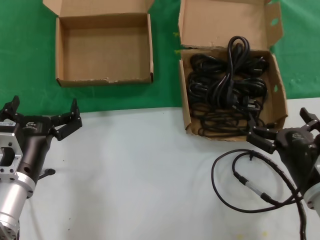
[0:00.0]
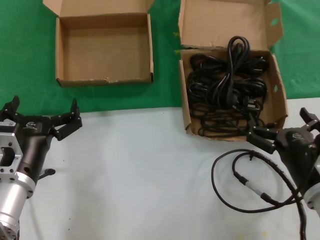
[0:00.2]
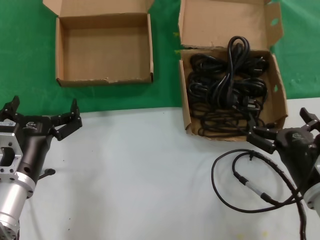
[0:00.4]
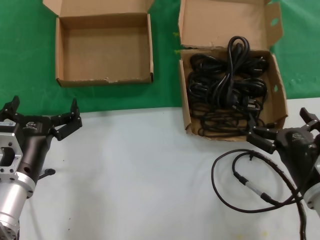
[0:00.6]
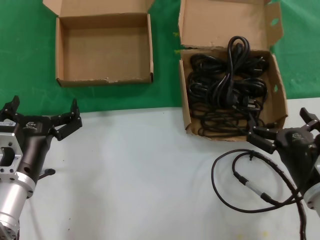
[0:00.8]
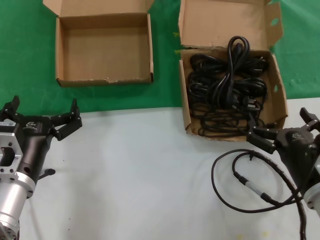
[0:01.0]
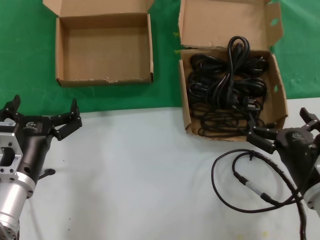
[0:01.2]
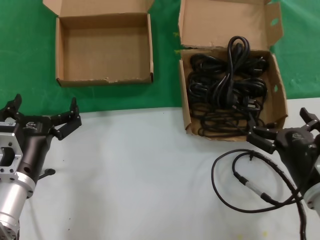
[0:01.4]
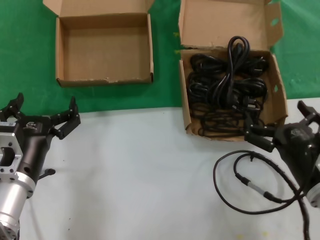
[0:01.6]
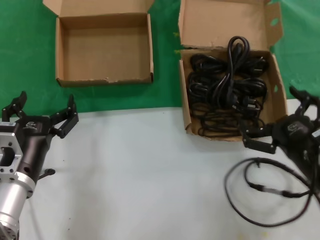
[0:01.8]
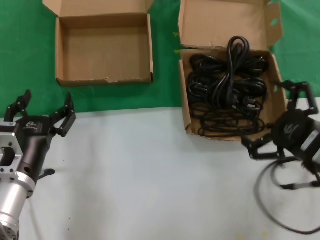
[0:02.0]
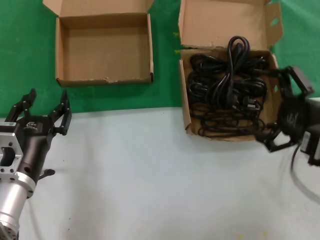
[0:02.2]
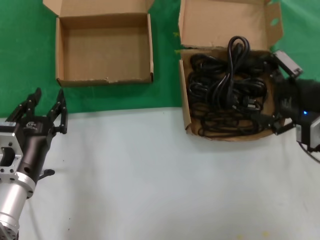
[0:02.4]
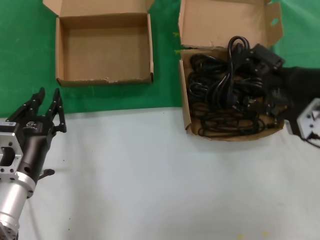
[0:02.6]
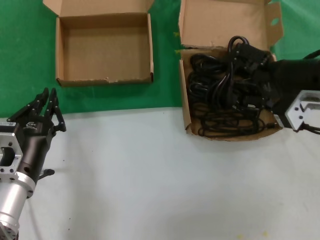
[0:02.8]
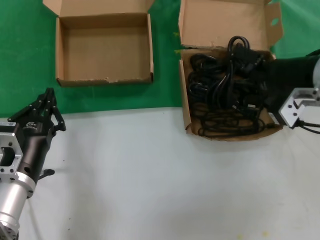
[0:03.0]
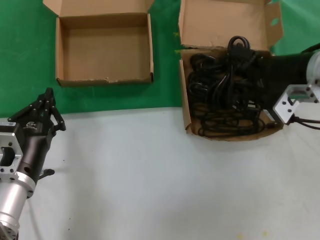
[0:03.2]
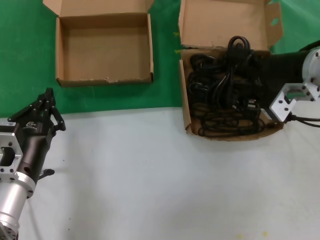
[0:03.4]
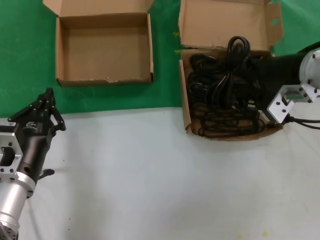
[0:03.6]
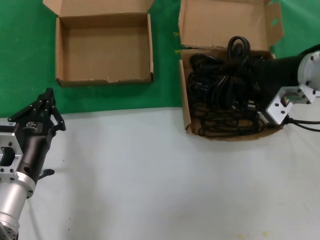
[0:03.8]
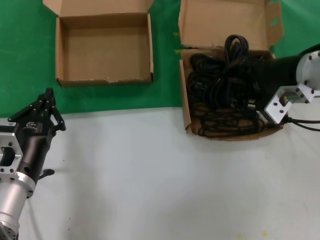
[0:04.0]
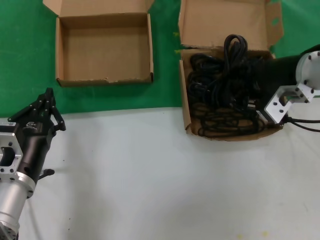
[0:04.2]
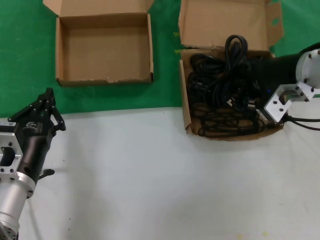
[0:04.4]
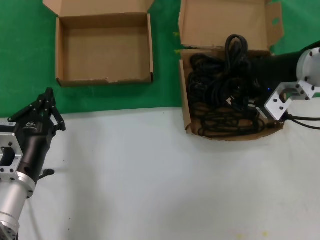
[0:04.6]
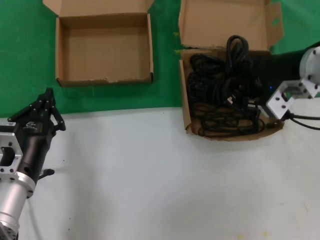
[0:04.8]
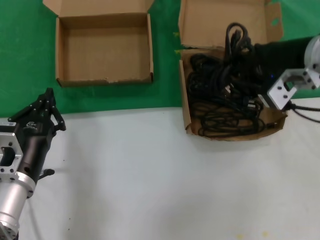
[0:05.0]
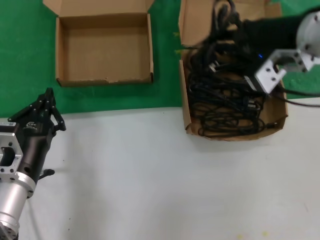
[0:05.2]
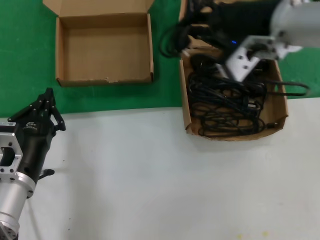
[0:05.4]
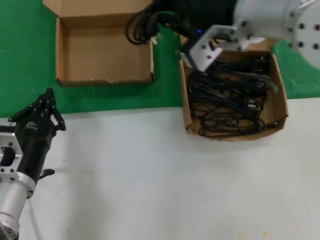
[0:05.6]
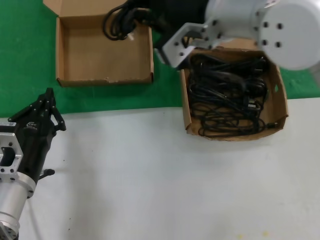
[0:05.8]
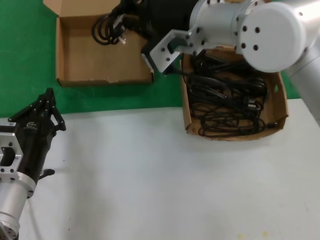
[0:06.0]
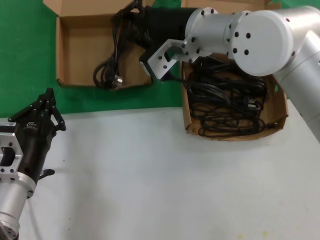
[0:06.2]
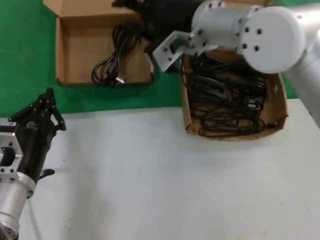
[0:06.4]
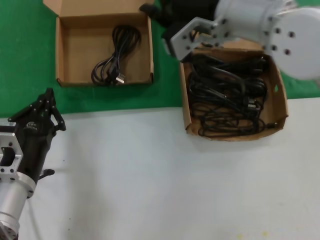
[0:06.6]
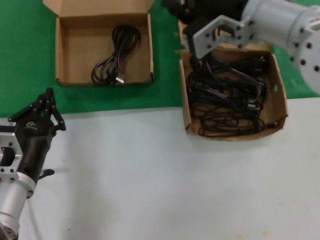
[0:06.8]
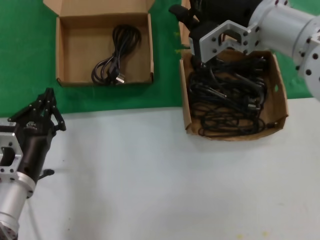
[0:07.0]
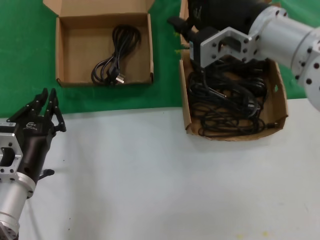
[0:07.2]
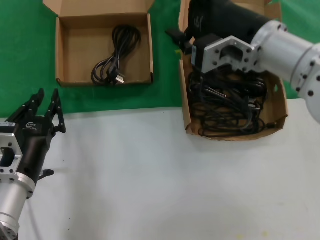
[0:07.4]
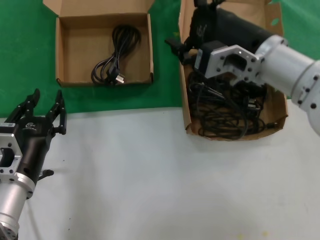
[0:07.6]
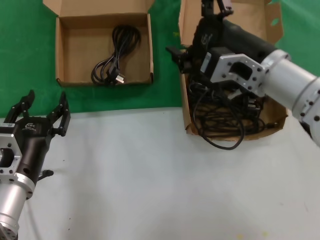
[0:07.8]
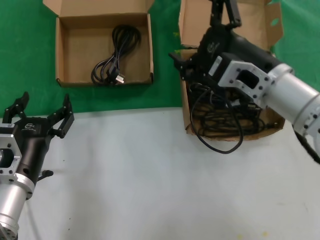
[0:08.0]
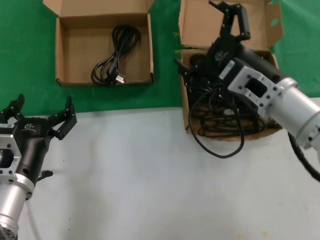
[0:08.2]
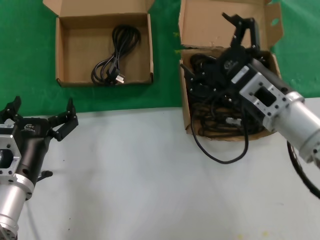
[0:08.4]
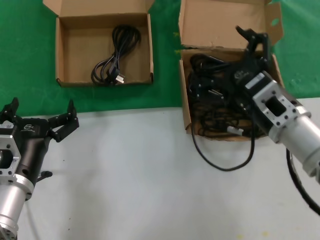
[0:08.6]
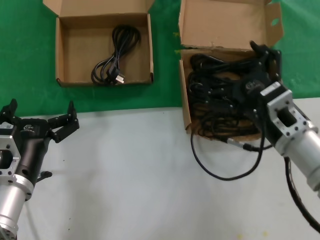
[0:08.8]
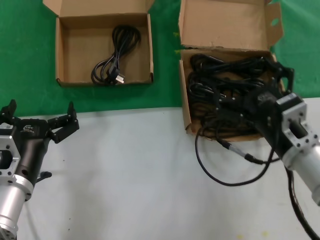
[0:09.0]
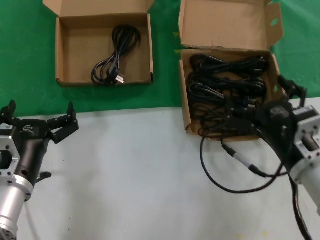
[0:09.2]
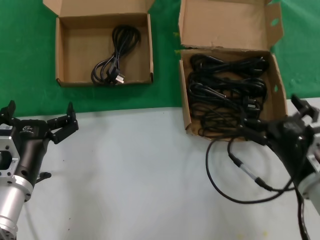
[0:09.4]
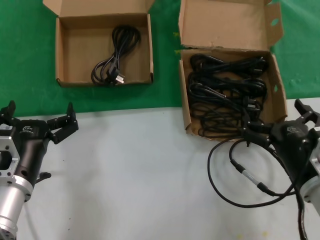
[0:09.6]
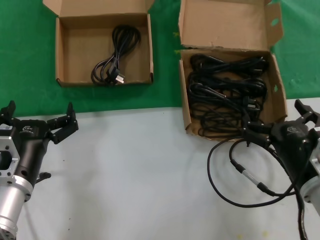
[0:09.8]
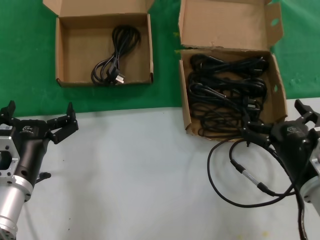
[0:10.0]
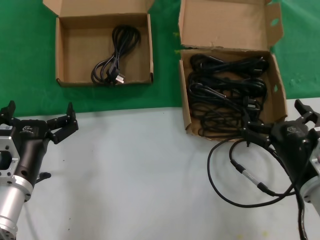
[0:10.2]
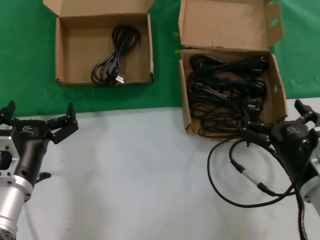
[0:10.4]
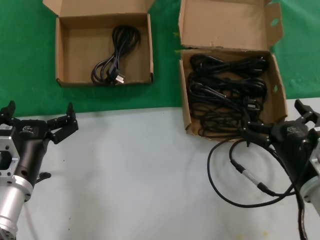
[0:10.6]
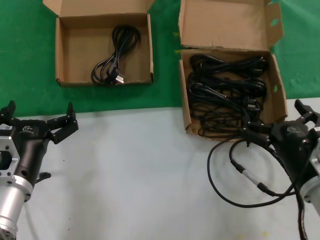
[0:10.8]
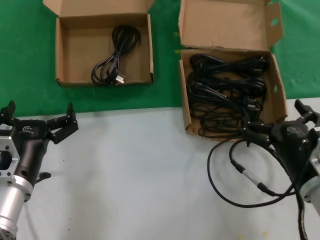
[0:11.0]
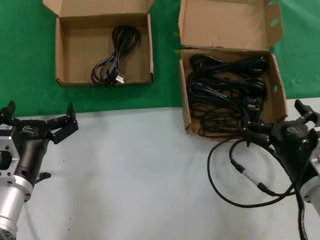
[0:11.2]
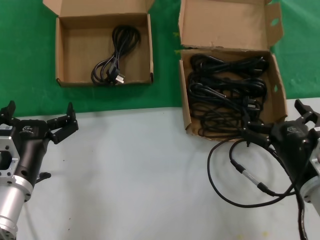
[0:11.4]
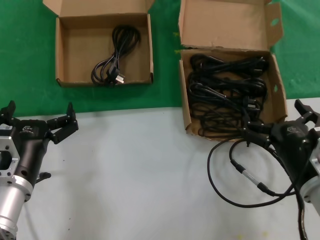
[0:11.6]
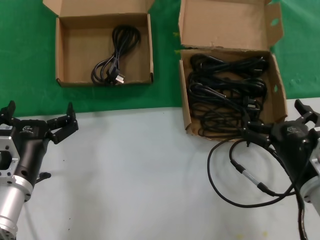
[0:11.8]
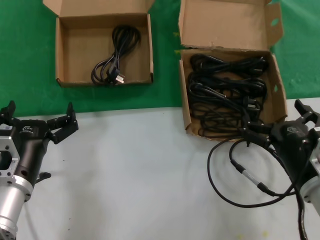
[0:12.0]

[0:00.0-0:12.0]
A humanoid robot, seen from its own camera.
Task of the whole recording: take the parts from the box containing them and put them into an empty box.
Step, 0.0 to 4.0 s: Grasp the data cable.
Step, 4.4 to 6.2 s: Place the data cable in the another box.
0.0 to 1.6 s: Both hands stay put.
1.6 to 3.0 s: The right hand shifts about 25 cm upward and forward.
3.0 to 4.4 s: The hands move only a little.
4.4 to 6.0 s: The right hand travels to the left by approximately 15 cm.
6.0 to 7.6 s: The right hand moves to the right, downward and backward, approximately 10 cm.
7.6 to 9.0 s: The right hand is displaced downward and backward by some 15 cm.
9.0 to 10.4 s: The right hand travels downward by approximately 5 cm.
10.4 to 12.0 s: The two hands keep their place.

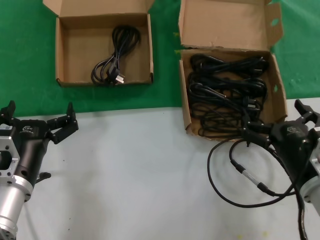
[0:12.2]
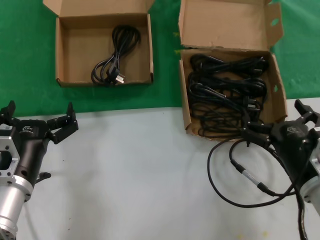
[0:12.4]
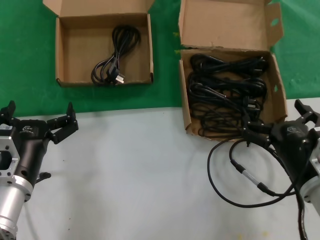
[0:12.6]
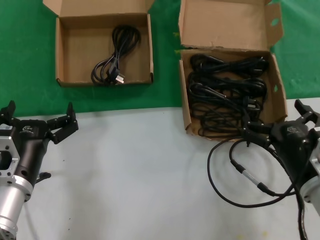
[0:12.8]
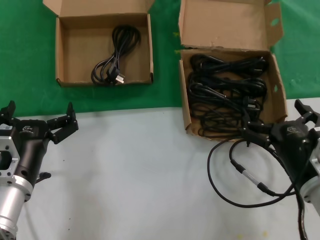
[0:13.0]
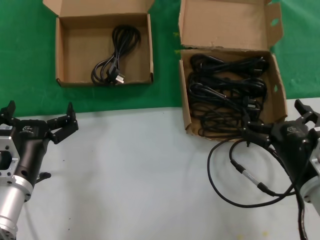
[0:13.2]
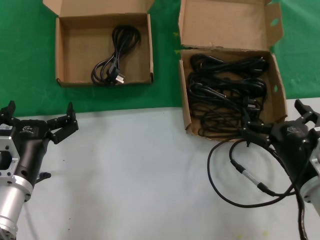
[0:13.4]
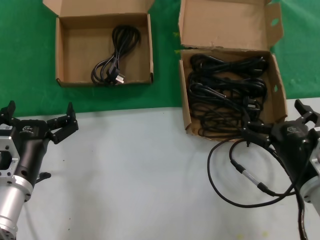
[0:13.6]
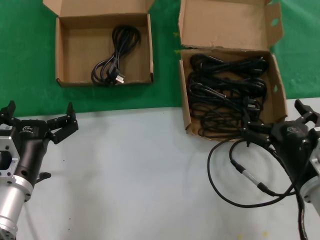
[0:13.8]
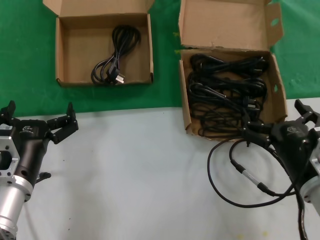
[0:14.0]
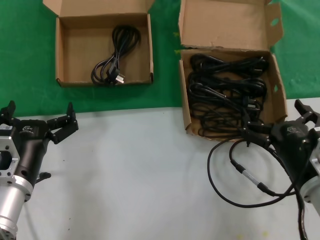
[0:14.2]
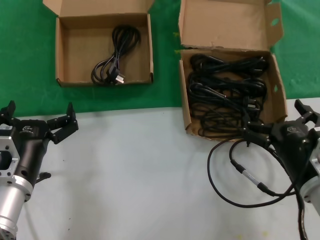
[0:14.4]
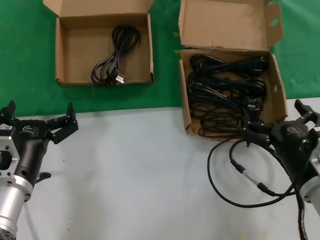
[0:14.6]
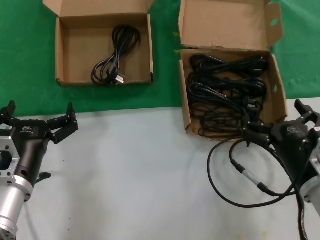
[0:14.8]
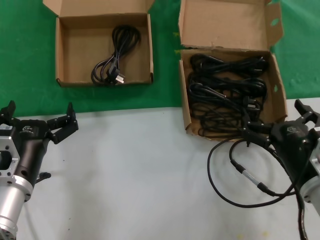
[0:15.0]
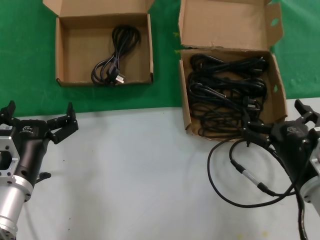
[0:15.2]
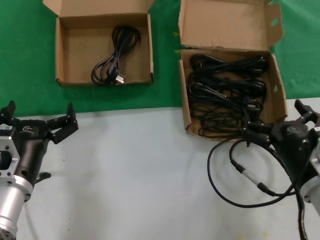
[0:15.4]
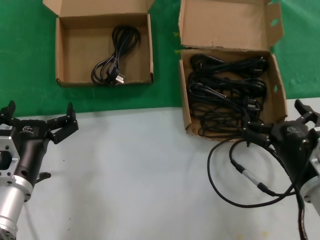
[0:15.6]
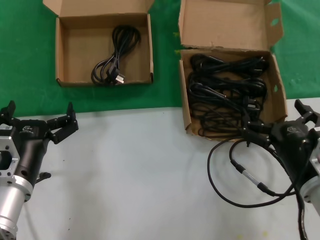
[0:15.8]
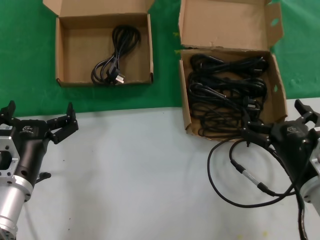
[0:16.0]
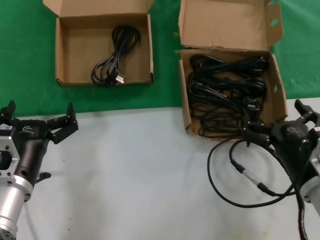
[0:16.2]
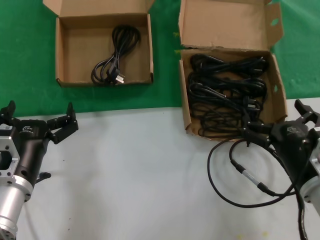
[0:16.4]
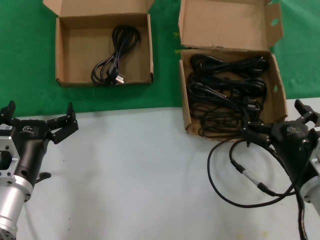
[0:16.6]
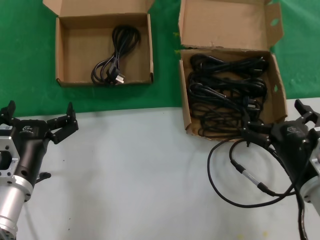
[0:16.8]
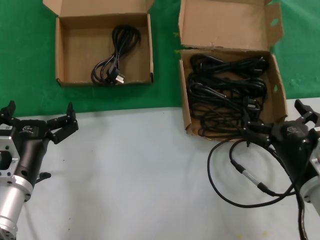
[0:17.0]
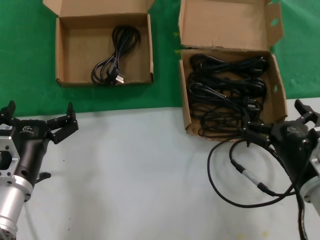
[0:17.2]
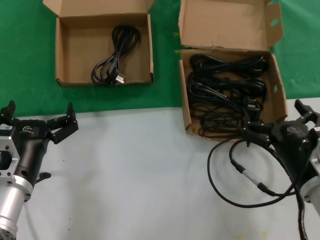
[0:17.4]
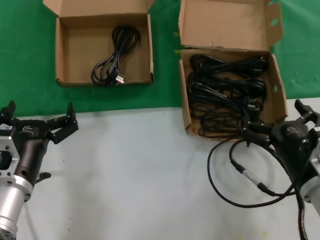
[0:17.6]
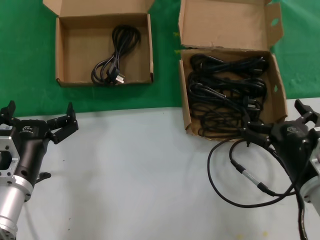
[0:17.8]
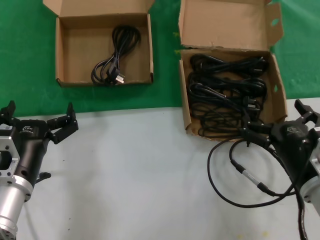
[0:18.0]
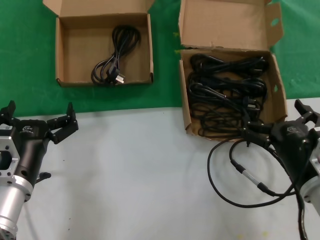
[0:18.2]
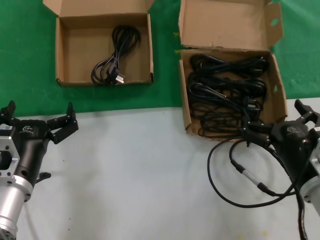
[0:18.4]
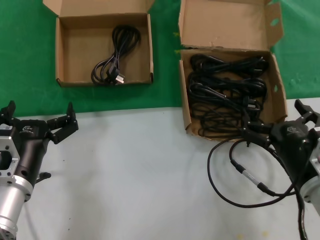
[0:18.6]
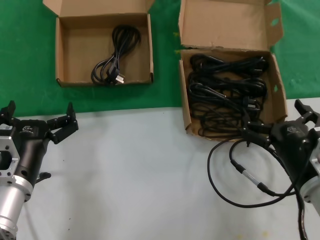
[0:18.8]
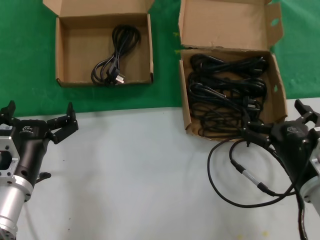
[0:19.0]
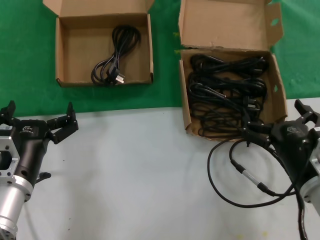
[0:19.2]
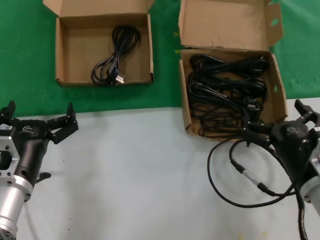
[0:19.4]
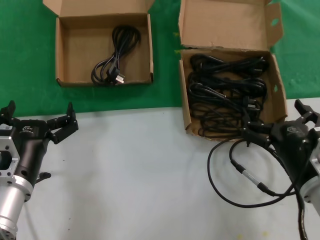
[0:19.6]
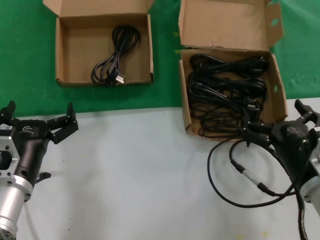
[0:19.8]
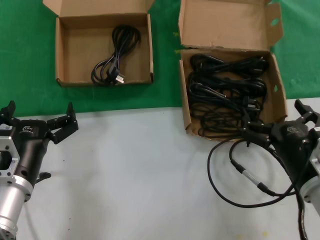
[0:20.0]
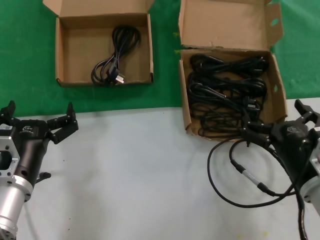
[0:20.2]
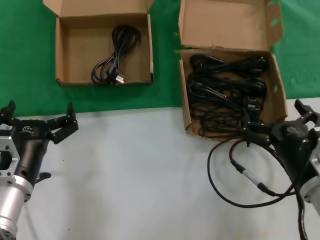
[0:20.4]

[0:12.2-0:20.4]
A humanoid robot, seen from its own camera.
Task of the whole recording: take the parts from the box containing them and put them into an empty box.
12.2 to 20.4 s: Neither hand changes place.

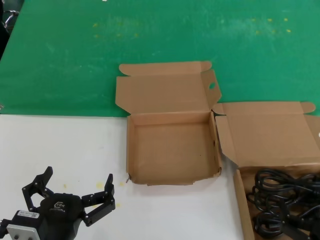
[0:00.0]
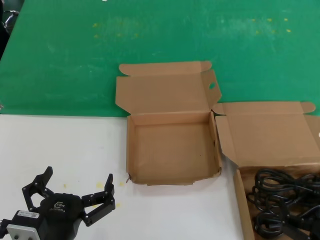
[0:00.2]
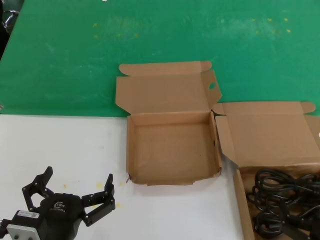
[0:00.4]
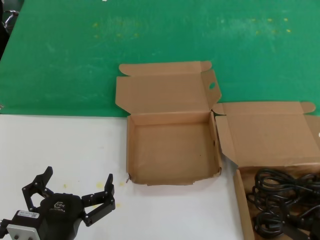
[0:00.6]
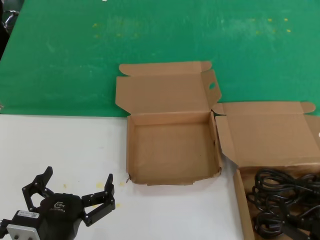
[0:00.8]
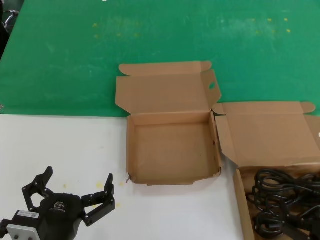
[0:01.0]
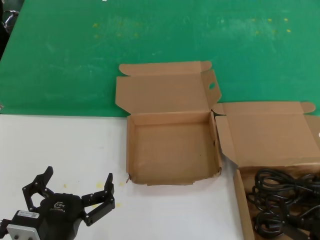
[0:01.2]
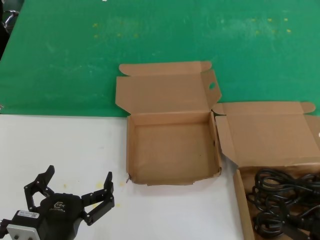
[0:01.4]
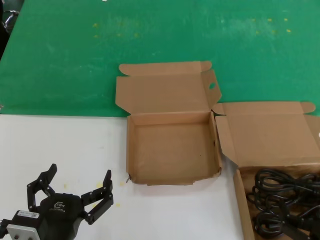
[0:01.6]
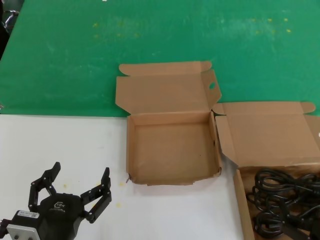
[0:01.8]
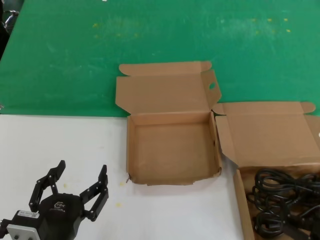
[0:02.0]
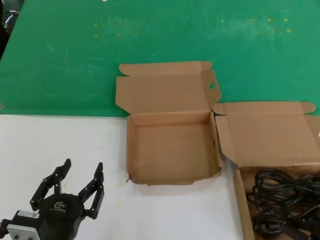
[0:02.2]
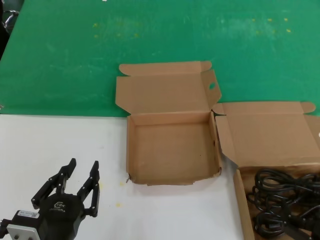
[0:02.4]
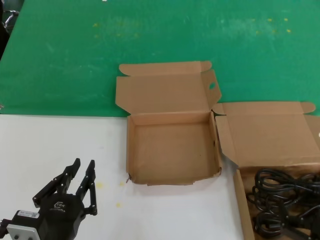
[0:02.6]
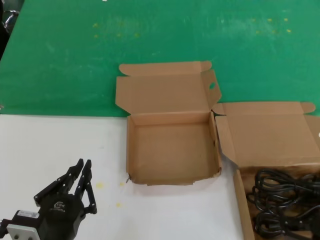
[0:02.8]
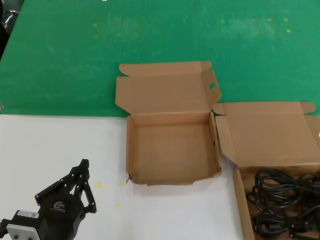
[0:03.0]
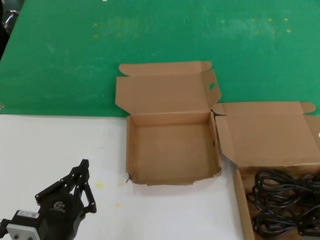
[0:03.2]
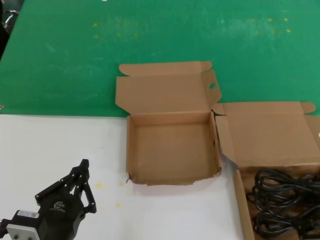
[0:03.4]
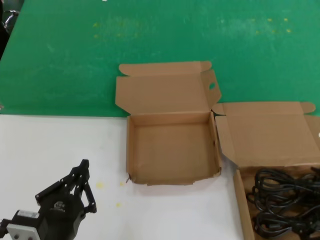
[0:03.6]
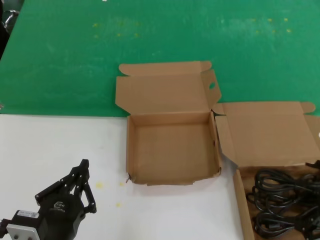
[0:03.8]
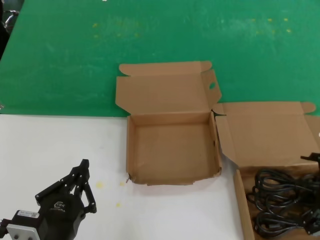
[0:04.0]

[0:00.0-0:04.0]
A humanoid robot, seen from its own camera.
Task of the whole recording: take the parts from the box containing them and put them into an empty box.
0.0 to 1.4 s: The two hands keep their place.
1.4 to 2.6 s: The hands stay close to where they were, moving slightly.
2.6 to 4.0 s: The right hand is displaced upward, forward and to the right by some 20 cm.
